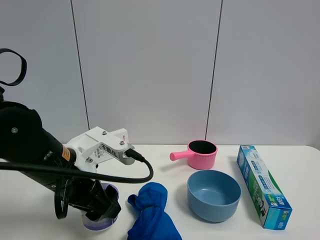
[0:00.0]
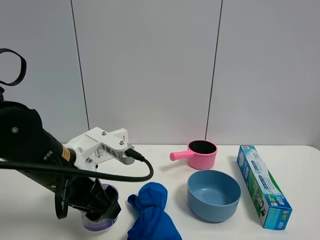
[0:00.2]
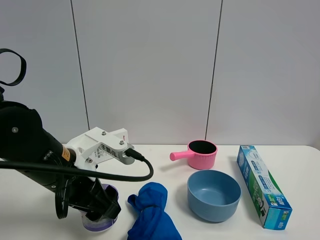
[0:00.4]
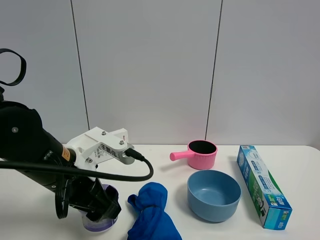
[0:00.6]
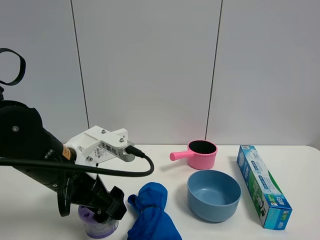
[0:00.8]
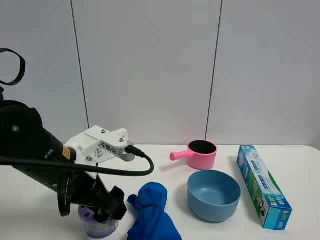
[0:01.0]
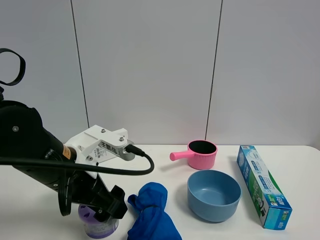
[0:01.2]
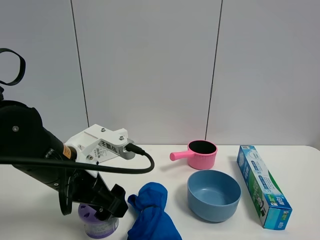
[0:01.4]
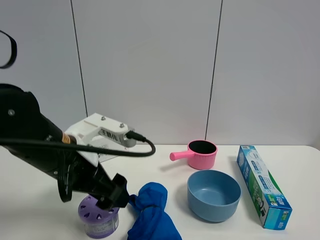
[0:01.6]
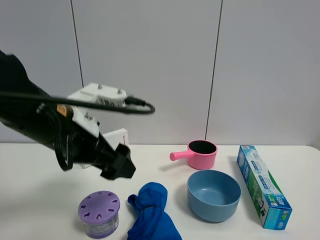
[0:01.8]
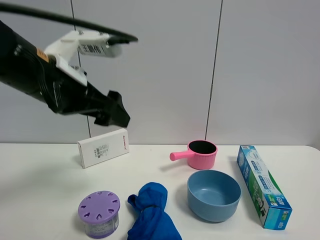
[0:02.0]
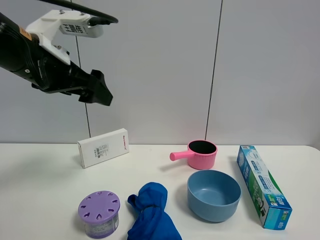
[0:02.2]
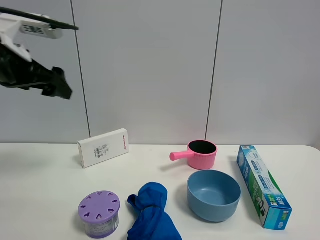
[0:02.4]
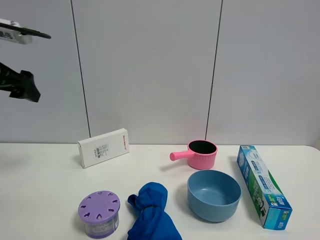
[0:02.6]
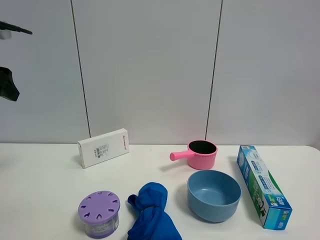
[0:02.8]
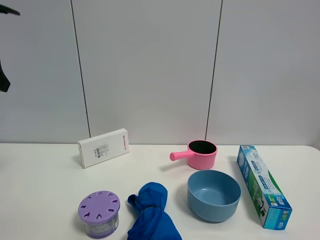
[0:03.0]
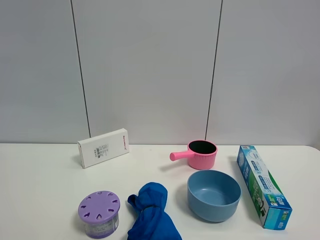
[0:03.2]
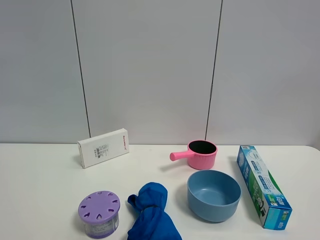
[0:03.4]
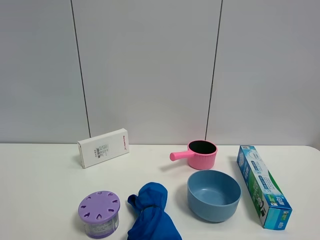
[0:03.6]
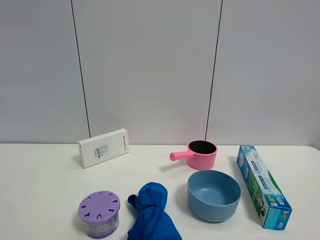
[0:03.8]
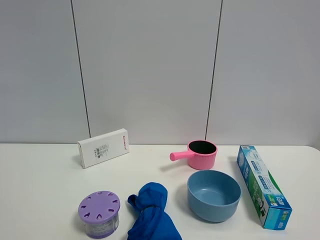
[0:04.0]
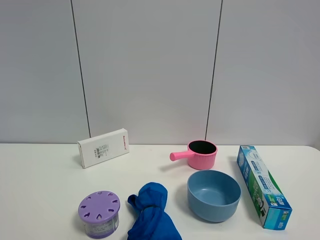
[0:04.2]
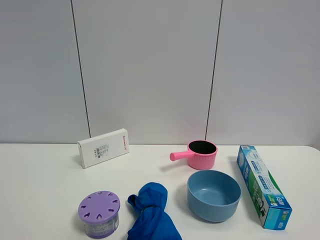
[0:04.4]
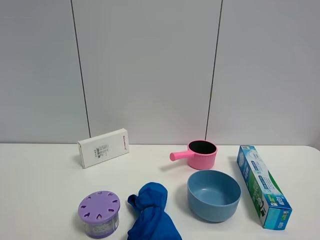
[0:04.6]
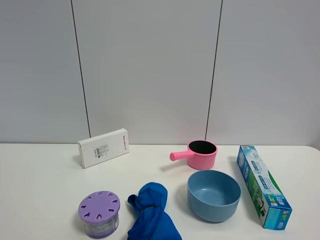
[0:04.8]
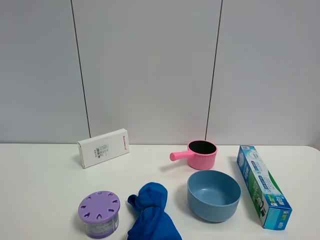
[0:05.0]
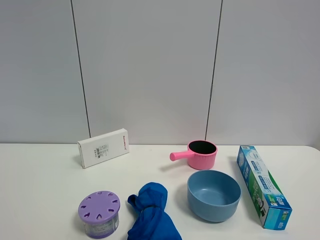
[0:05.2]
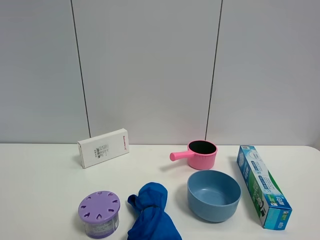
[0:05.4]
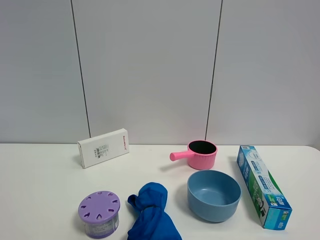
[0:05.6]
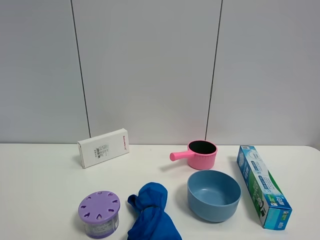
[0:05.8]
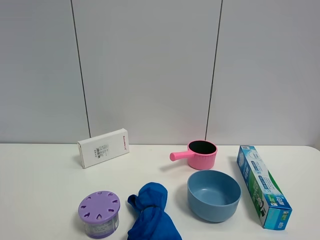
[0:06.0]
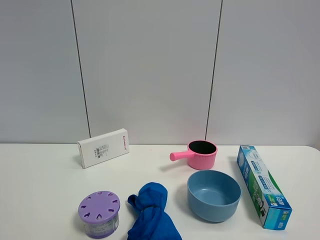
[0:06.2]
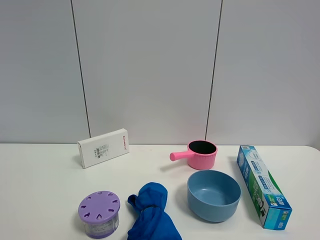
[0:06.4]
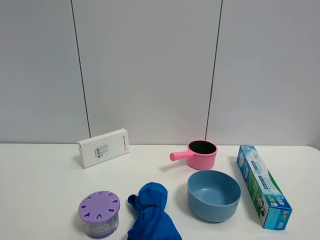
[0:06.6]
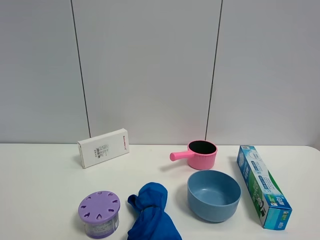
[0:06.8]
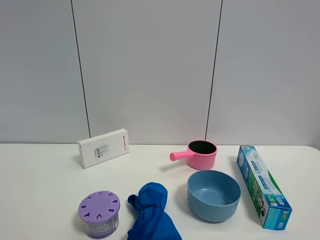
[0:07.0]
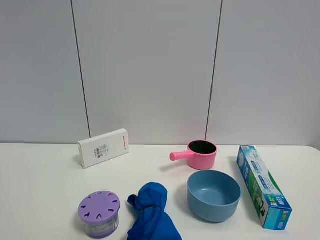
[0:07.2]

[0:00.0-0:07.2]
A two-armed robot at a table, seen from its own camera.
Task of the whole recording: the gripper move the object.
0:00.0 to 0:01.4: The left gripper opens up.
0:01.4 to 0:02.8: The left gripper travels to the left and upward by approximately 25 cm.
0:02.8 to 0:04.4: The left gripper moves backward, about 30 cm.

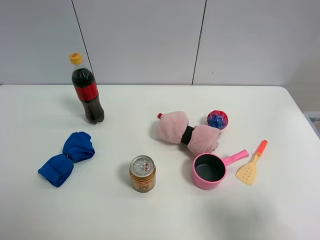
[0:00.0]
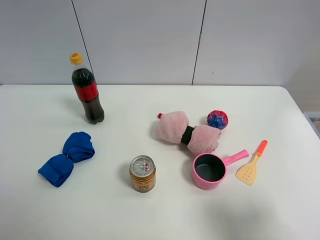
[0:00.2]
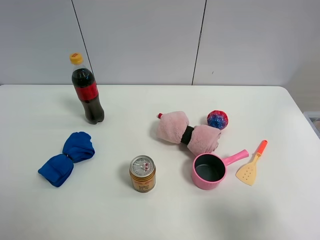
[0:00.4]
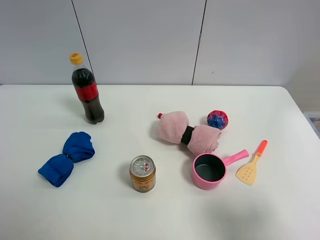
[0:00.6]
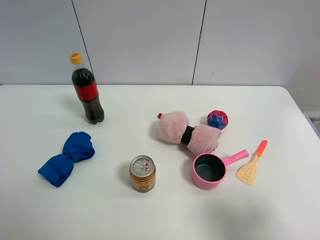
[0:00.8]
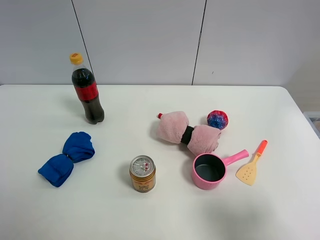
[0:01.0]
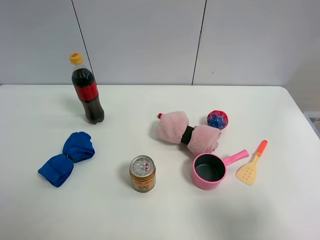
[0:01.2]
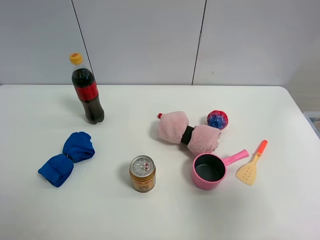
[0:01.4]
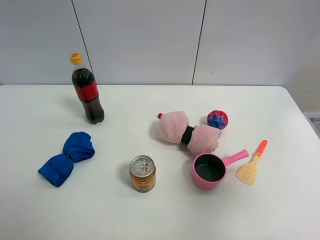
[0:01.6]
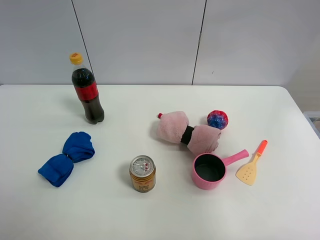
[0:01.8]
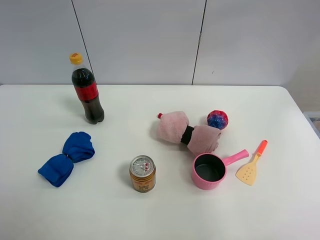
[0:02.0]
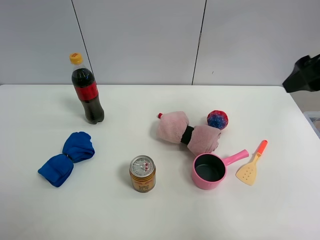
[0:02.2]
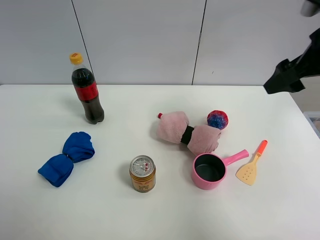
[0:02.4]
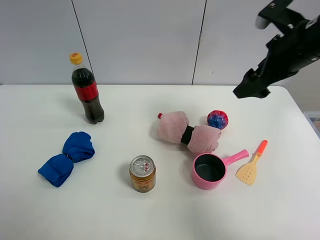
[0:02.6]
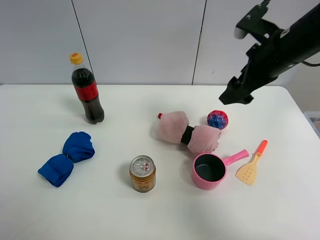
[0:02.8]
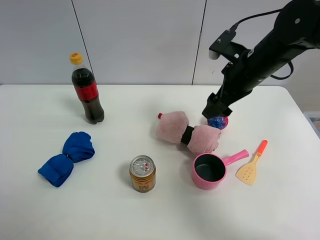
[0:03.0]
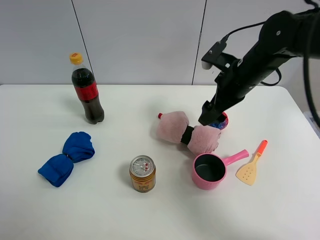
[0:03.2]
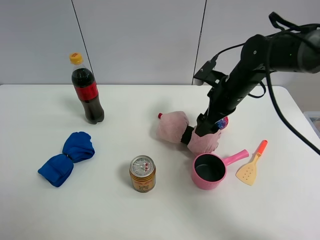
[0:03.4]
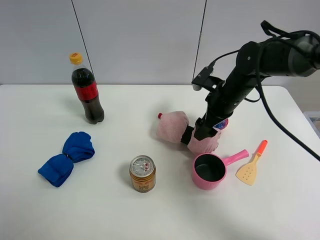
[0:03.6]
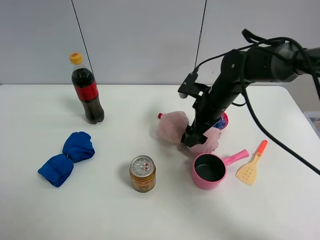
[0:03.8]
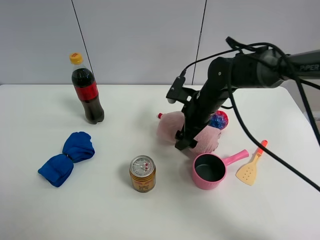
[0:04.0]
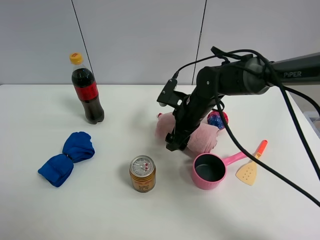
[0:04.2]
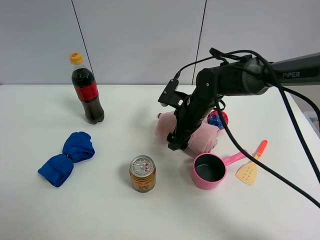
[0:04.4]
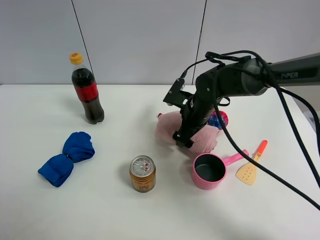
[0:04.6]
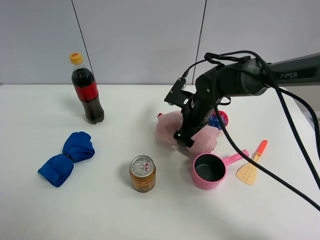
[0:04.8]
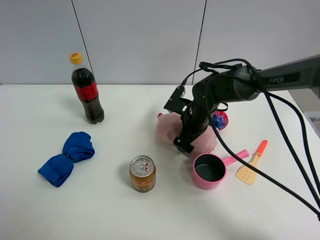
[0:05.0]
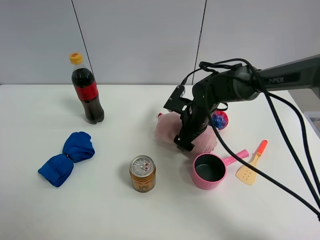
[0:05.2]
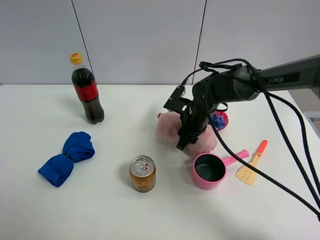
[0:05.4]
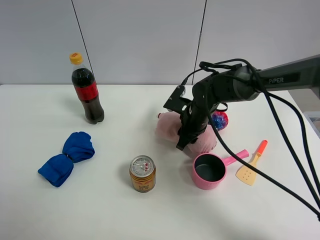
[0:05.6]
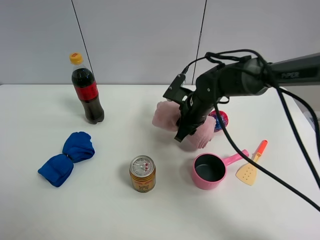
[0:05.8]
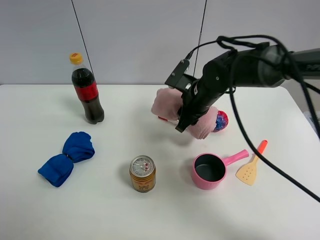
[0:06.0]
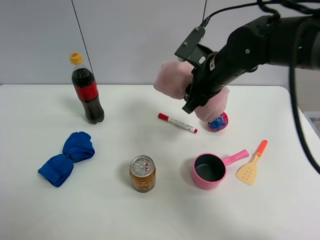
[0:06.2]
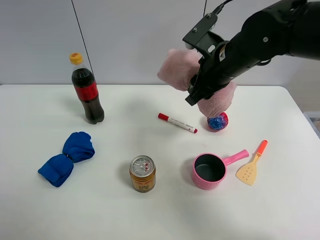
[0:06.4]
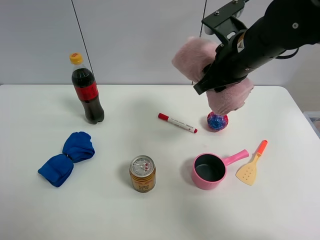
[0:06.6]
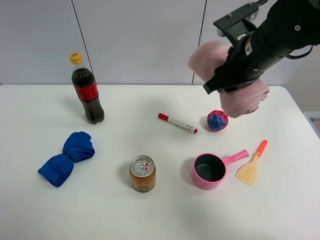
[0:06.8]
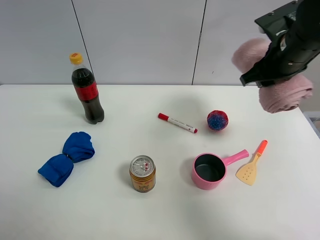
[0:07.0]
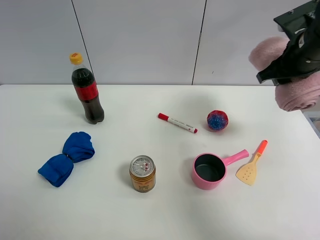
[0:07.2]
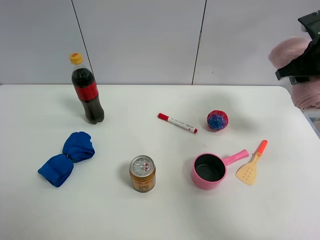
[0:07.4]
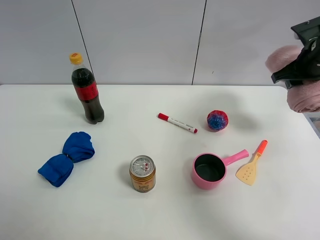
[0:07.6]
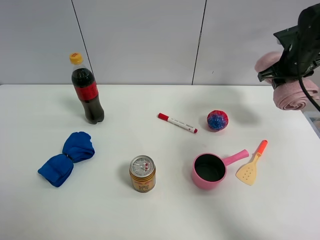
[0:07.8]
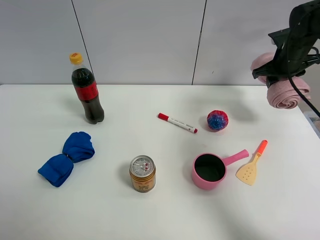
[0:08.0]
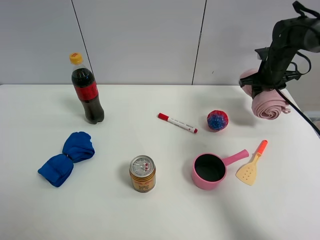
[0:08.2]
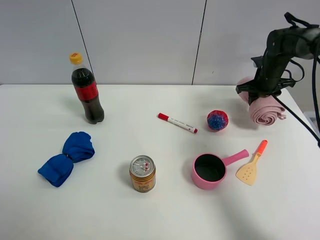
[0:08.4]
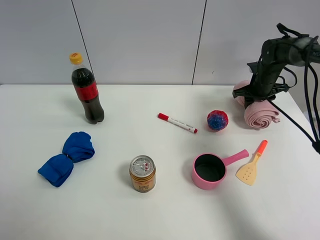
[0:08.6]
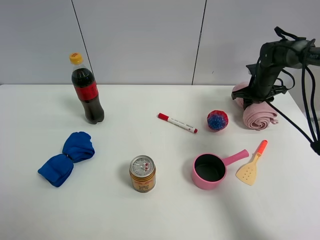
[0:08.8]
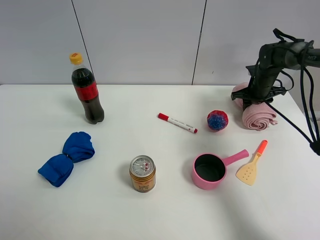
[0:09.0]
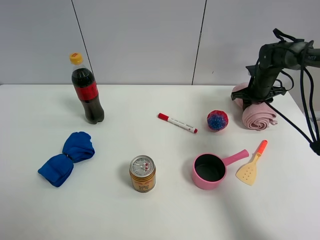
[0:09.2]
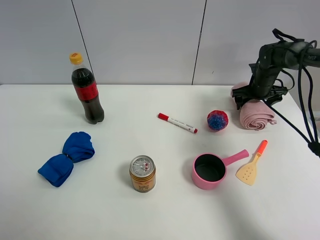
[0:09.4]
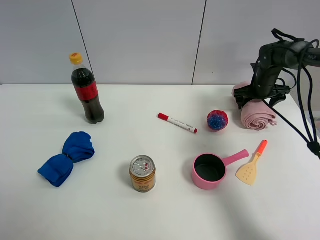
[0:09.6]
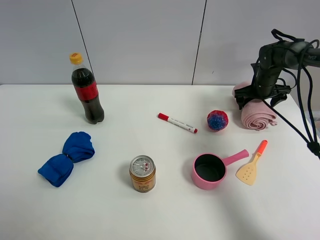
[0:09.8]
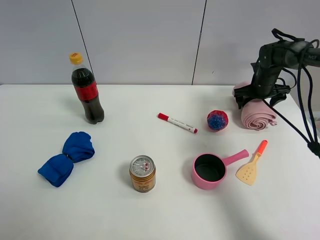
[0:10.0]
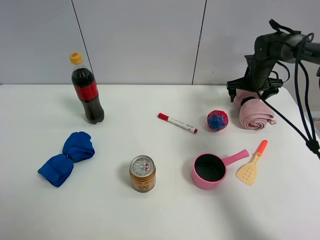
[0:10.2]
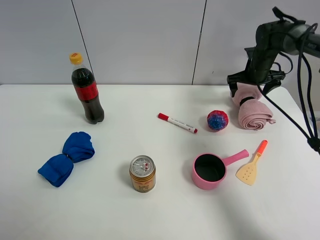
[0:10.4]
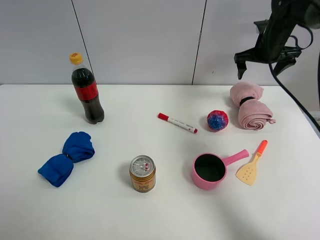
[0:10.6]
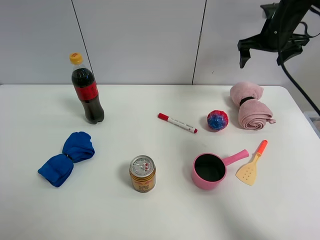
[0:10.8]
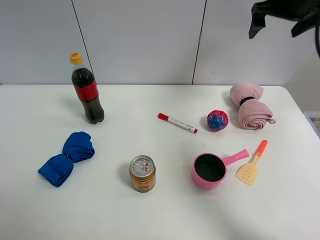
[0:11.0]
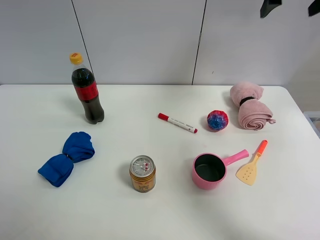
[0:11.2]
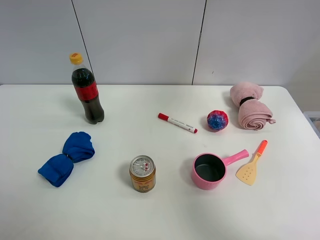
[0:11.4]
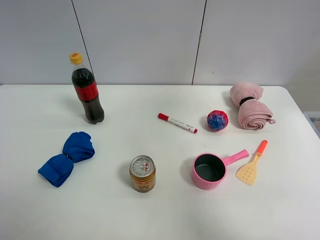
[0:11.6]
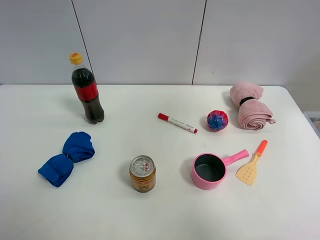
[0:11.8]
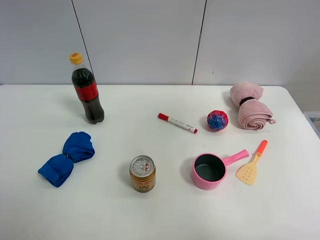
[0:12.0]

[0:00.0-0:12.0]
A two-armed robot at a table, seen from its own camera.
Task of the whole recording: the gripper move the object.
Step, 0:00.0 to 0:05.2: Grasp the pink towel with the right gripper.
Step, 0:05.4 to 0:10.2: Place the pink towel on the table with the right gripper.
0:00.0 to 0:01.6: The right gripper is displaced upward and forward by approximately 15 cm.
0:01.6 to 0:03.0: The right gripper shifts roughly 30 cm forward, downward and to the left.
0:03.0 to 0:04.4: The right gripper shifts some 15 cm downward and to the left.
0:04.4 to 0:06.0: The right gripper moves upward, approximately 5 cm, and closes.
0:06.0 to 0:07.6: The right gripper moves to the right, about 20 cm.
0:07.6 to 0:09.0: The right gripper shifts approximately 20 cm downward and forward.
0:09.0 to 0:10.4: The right gripper goes approximately 5 cm upward, and opens its fingers.
0:10.4 to 0:12.0: The right gripper is displaced upward and backward by approximately 50 cm.

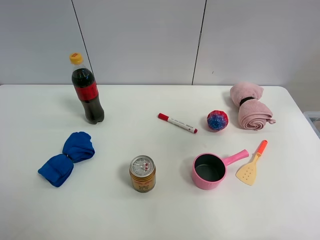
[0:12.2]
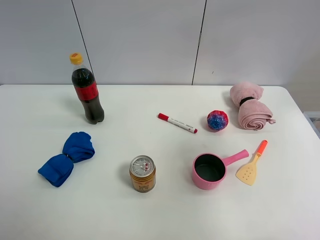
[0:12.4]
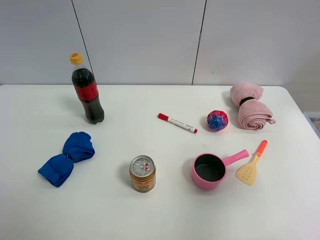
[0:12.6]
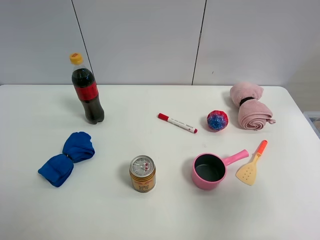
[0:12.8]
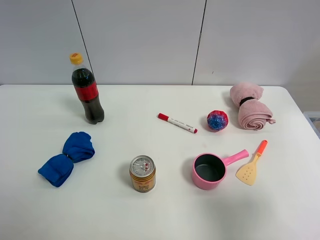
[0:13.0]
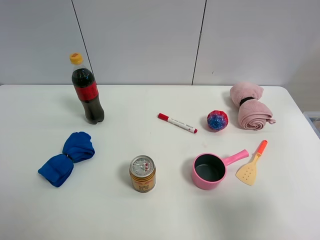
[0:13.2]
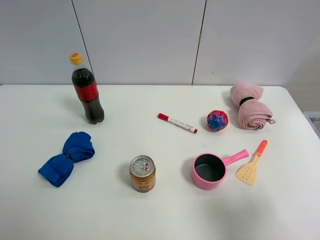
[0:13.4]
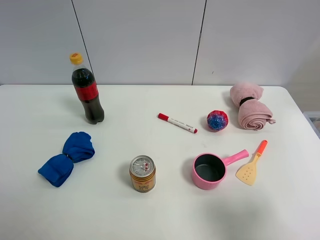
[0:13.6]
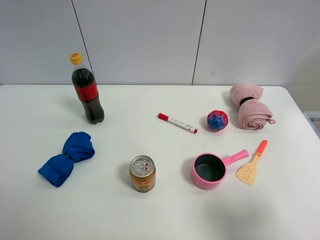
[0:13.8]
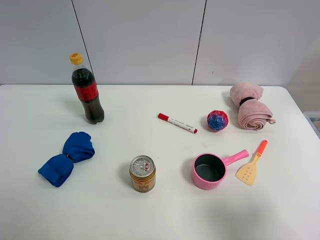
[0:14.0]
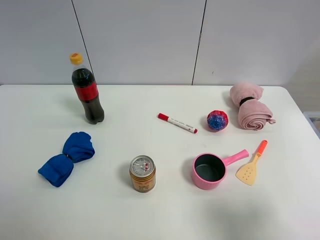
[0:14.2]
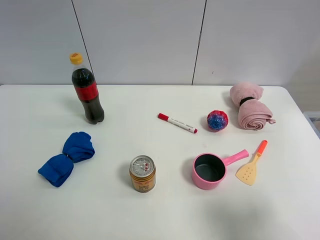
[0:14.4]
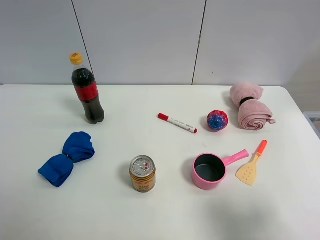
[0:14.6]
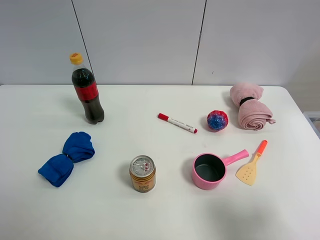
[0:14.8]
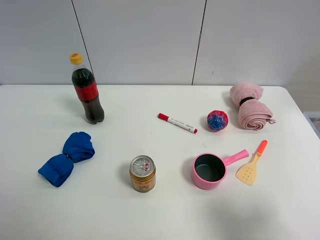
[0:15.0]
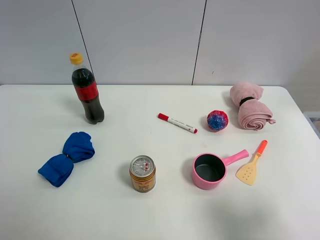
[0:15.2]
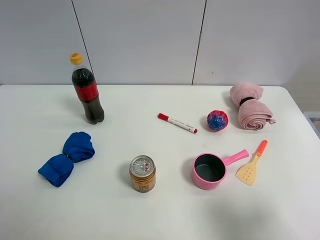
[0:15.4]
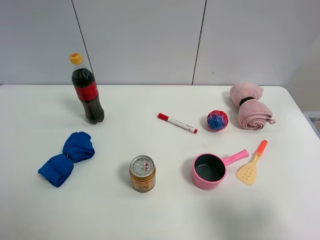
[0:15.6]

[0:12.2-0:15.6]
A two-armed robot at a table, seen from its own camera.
Task of the whole recording: the gripper move the object.
0:12.2 to 0:13.8: The right gripper shifts roughly 25 cm downward and backward.
